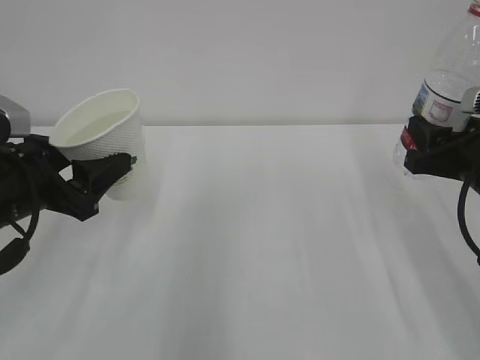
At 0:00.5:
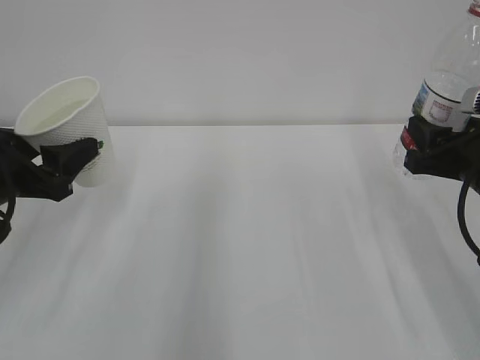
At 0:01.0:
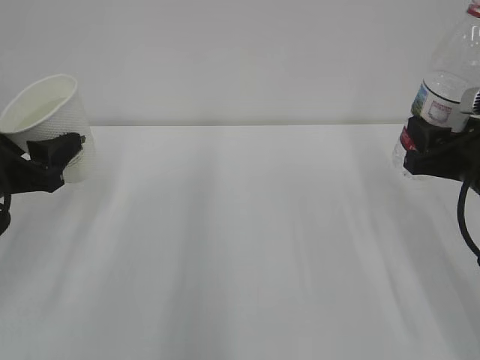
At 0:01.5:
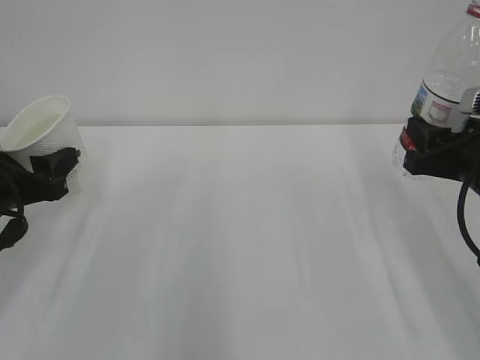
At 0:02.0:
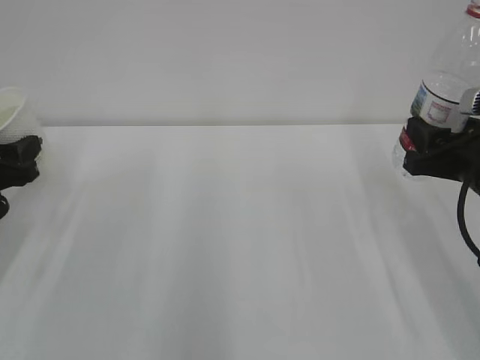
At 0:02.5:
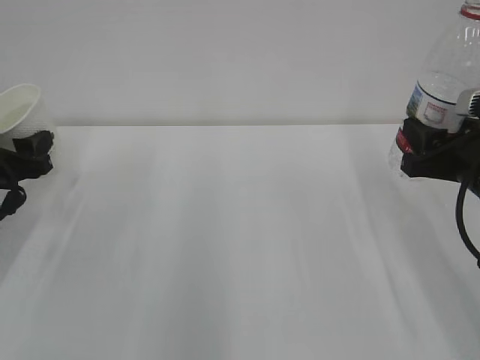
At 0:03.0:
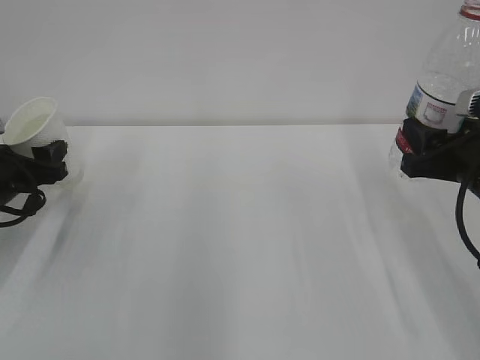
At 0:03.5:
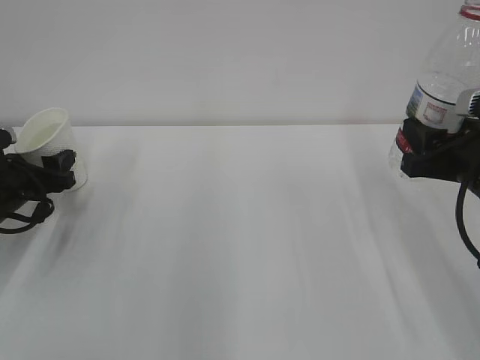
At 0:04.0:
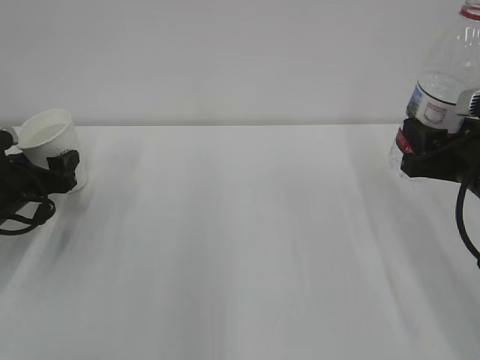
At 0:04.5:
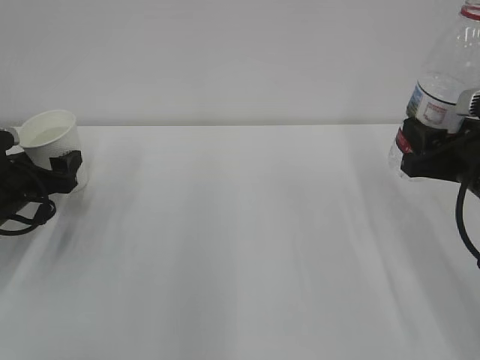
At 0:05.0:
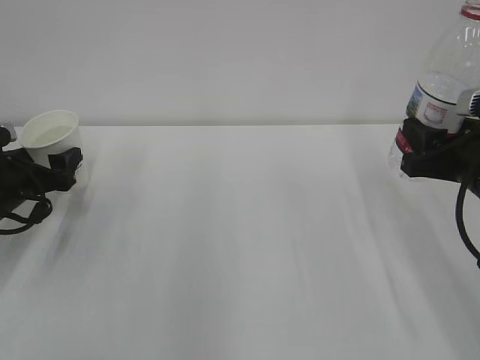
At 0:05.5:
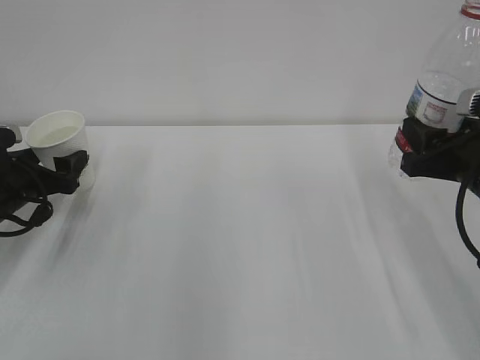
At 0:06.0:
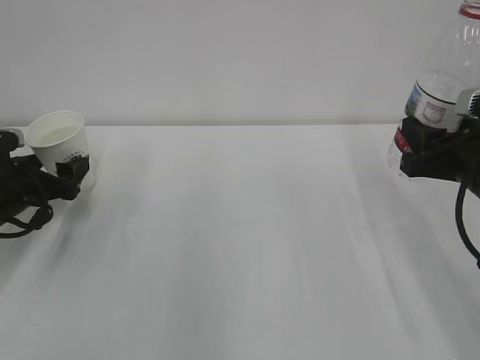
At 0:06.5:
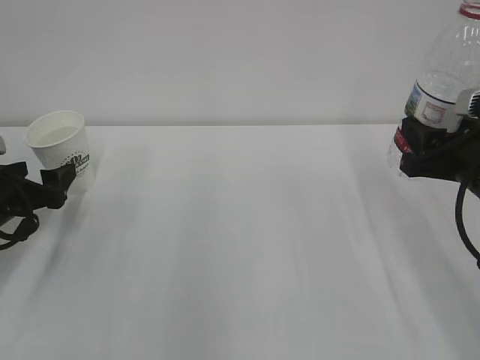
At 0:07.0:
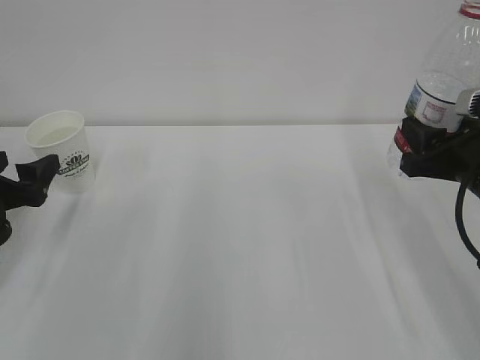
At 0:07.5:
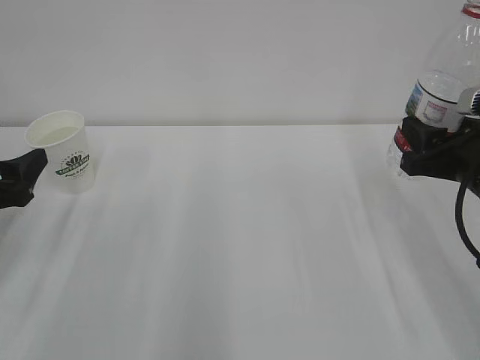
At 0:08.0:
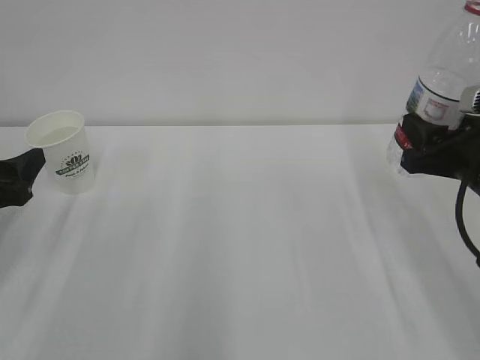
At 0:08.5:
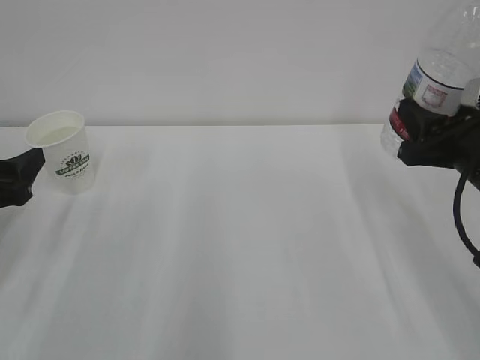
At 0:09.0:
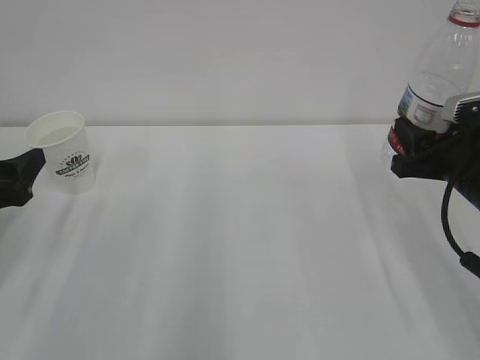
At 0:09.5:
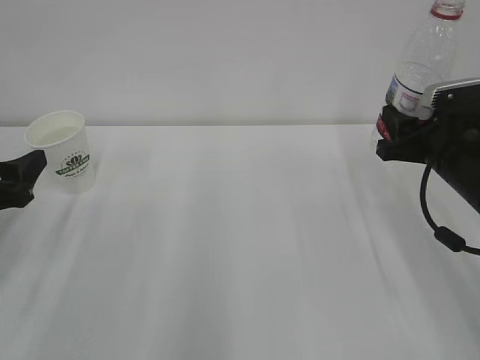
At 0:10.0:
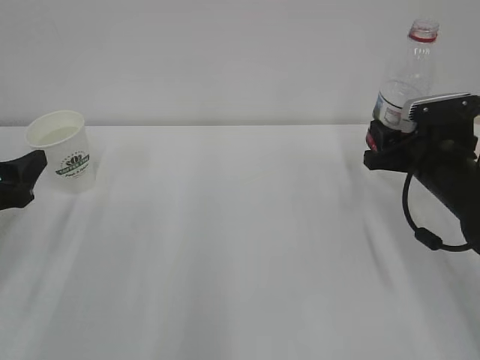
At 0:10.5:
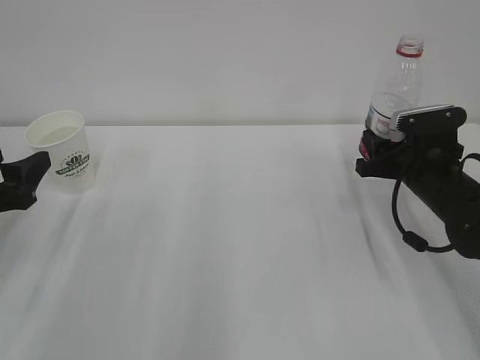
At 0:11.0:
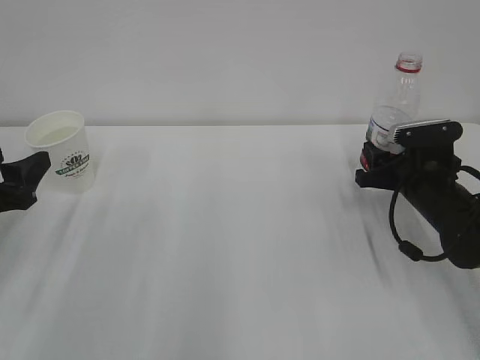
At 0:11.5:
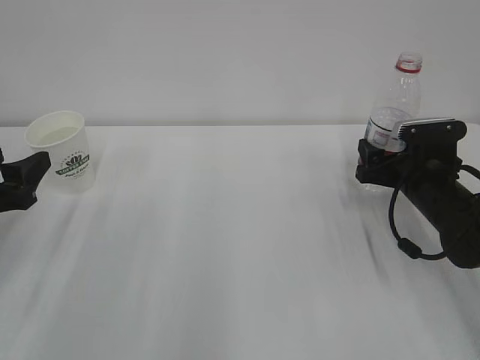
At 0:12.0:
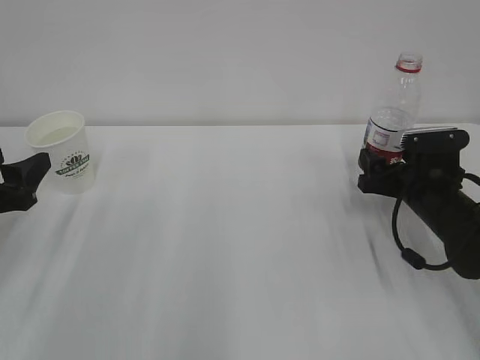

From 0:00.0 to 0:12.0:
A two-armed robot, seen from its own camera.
From 0:00.0 to 0:02.0: The left gripper goes approximately 10 cm to the left.
From 0:02.0 to 0:04.0: The left gripper is displaced downward and forward by some 10 cm, and opens its fingers.
From 0:04.0 to 0:06.0: The left gripper opens its fingers.
From 0:06.0 to 0:08.0: The left gripper travels backward and upward by approximately 10 cm, and closes.
From 0:08.0 to 0:10.0: The right gripper travels forward and downward by about 10 cm.
From 0:10.0 to 0:12.0: The right gripper opens up.

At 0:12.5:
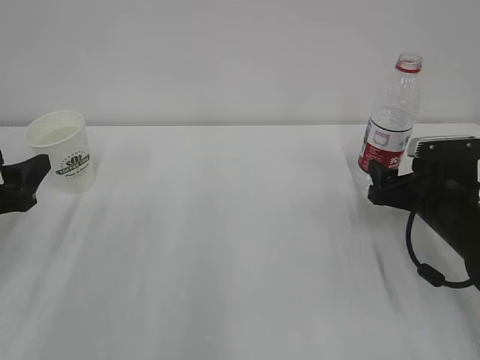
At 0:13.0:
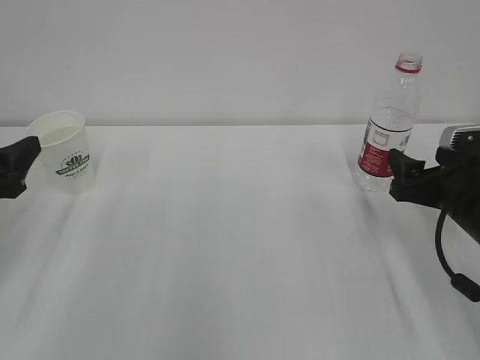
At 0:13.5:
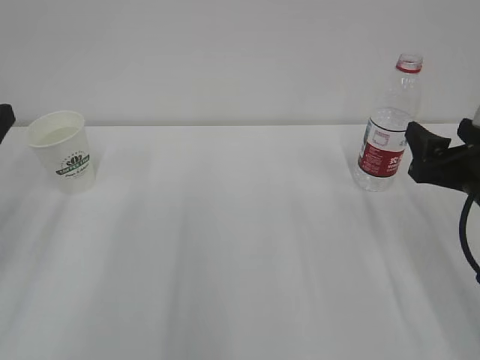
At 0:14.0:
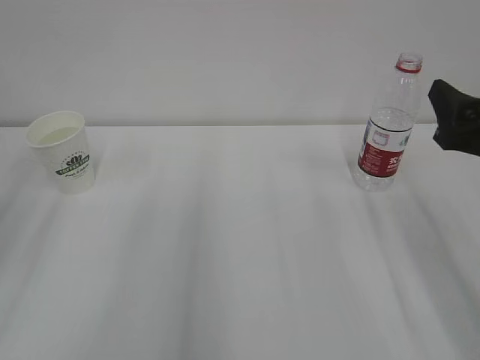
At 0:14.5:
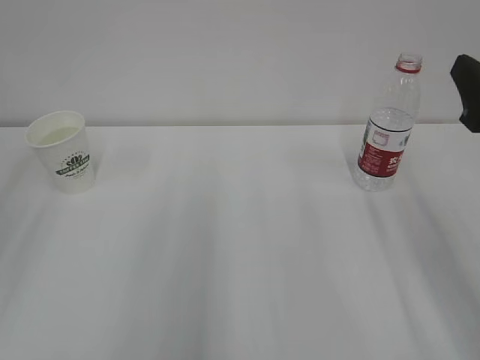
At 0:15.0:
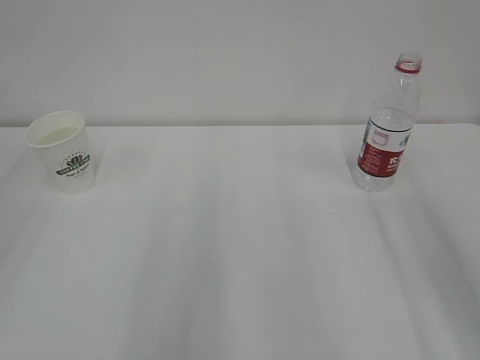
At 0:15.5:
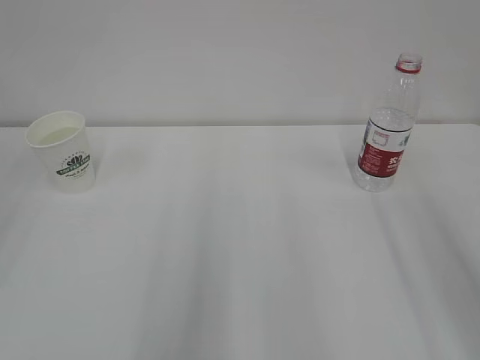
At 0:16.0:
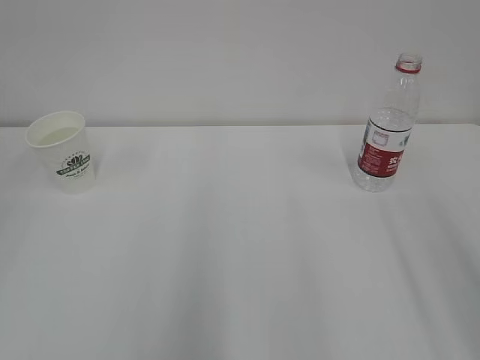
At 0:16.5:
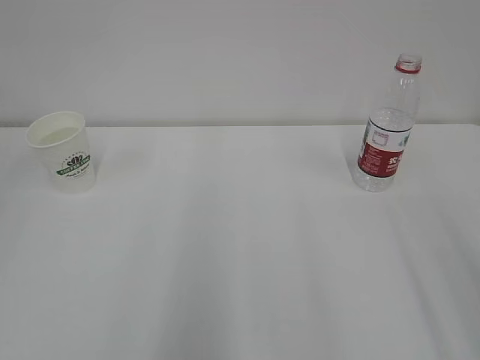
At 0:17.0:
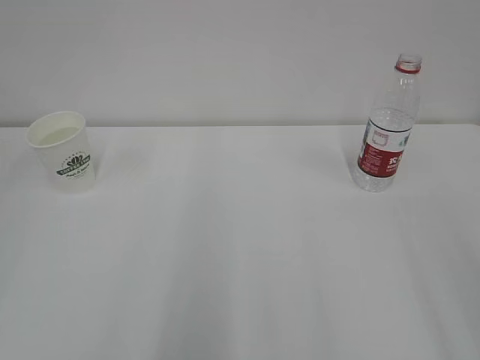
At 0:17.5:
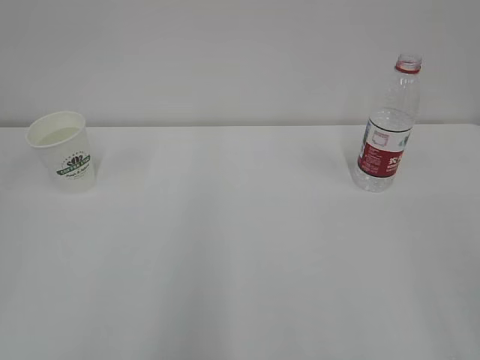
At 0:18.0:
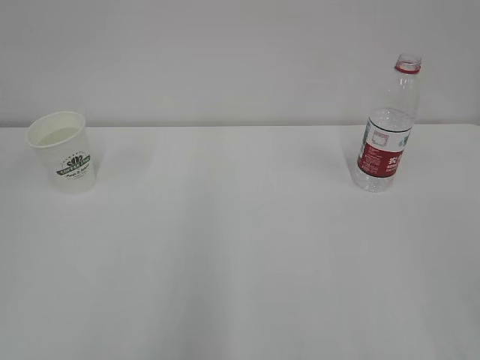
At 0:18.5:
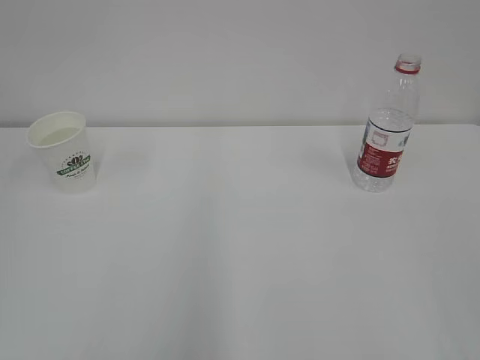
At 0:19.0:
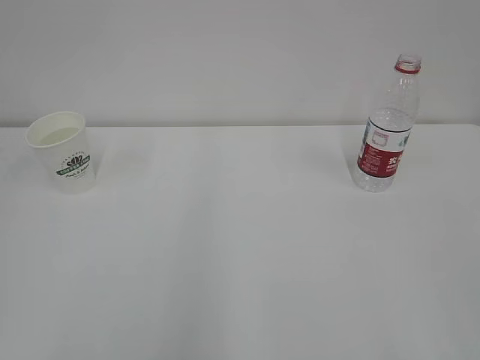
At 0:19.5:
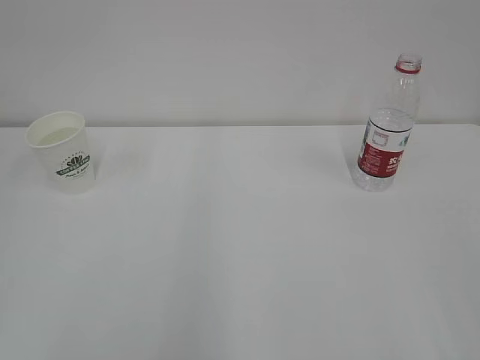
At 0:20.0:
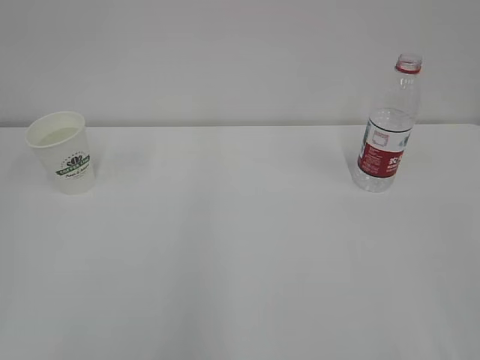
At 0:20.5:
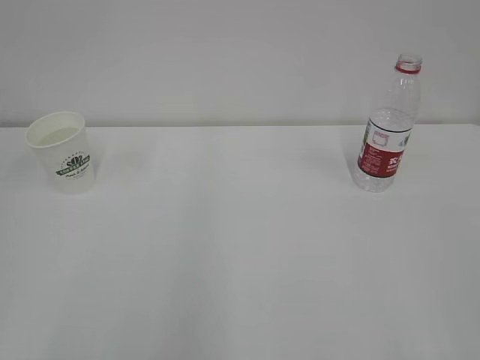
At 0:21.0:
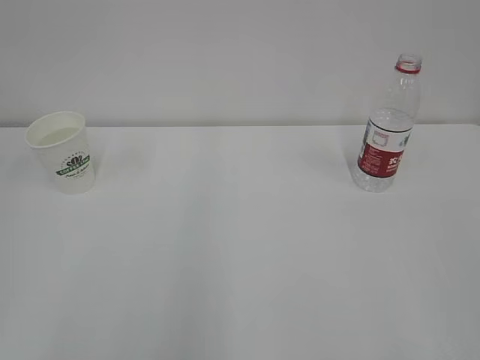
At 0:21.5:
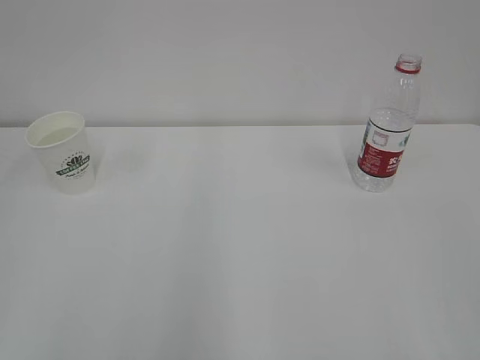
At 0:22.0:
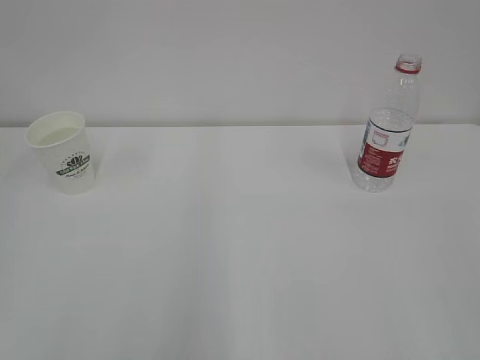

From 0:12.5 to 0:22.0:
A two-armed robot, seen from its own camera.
From 0:12.5 to 0:14.5: The grippers both shift upward and backward by approximately 20 cm.
From 0:14.5 to 0:16.5: The right gripper goes about 15 cm backward.

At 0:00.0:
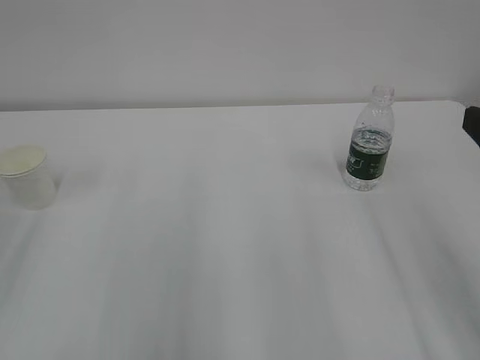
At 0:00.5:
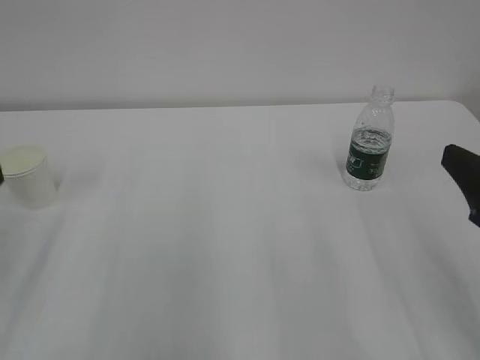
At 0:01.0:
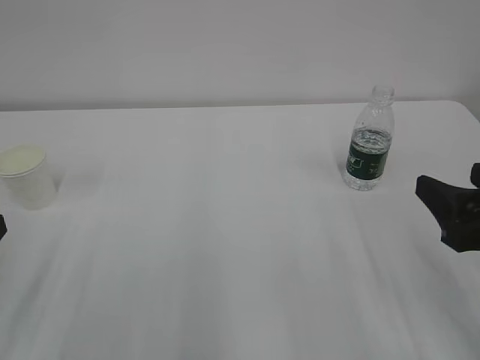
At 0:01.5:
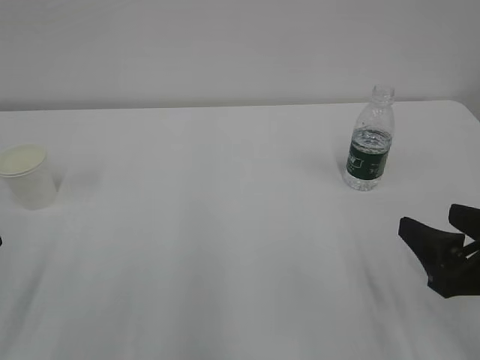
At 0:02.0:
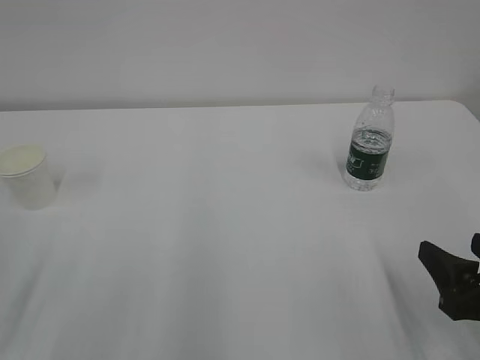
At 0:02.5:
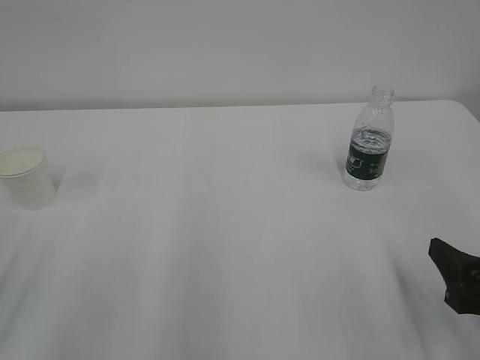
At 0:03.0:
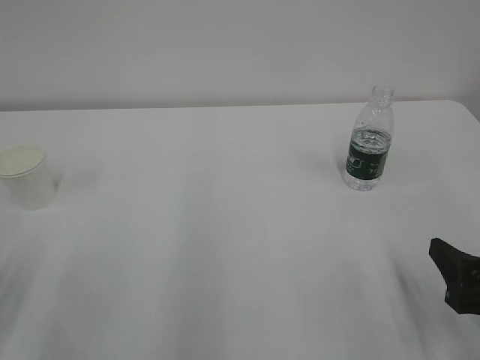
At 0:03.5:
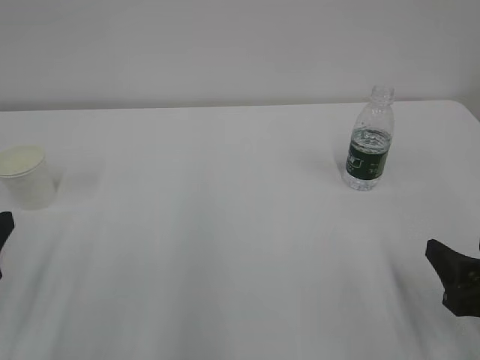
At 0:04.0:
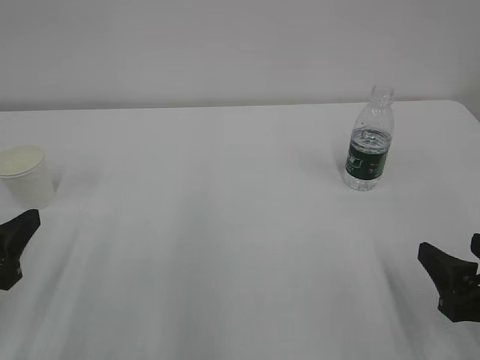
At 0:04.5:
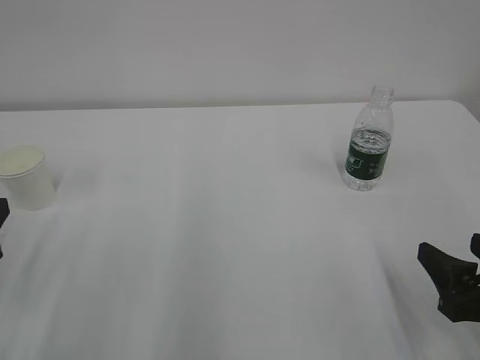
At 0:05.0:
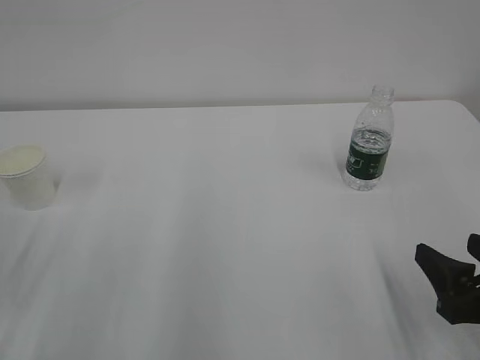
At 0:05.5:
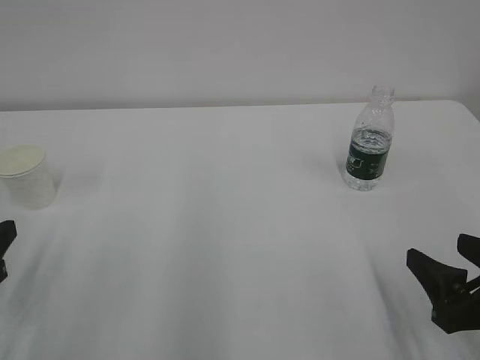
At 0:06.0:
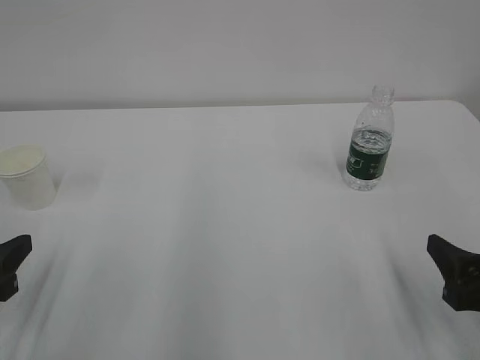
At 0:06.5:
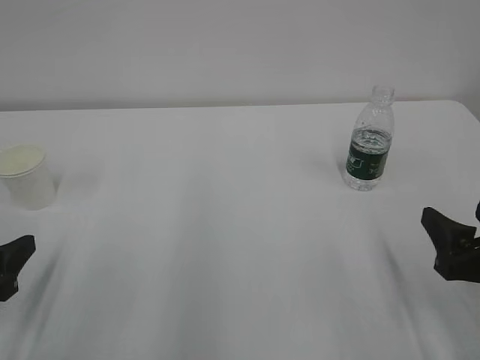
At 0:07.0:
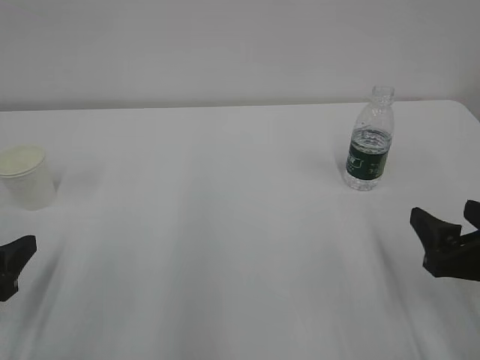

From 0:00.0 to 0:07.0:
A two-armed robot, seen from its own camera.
From 0:00.0 to 0:02.0: The right gripper travels downward by approximately 15 cm.
From 0:02.0 to 0:05.0: There are only small adjustments of the grippers.
From 0:05.0 to 0:07.0: The left gripper opens up.
